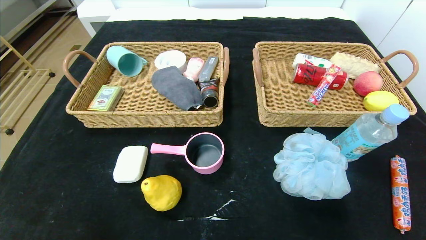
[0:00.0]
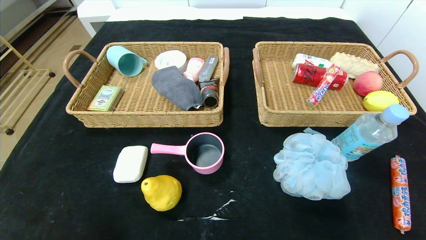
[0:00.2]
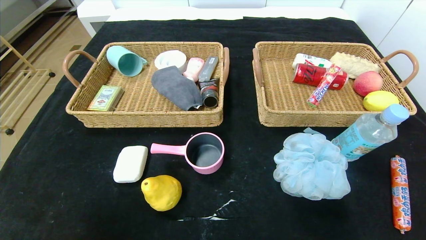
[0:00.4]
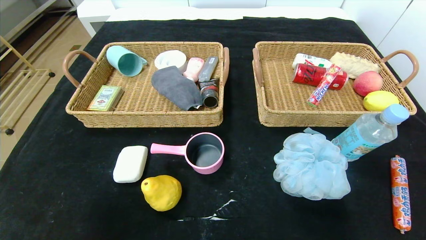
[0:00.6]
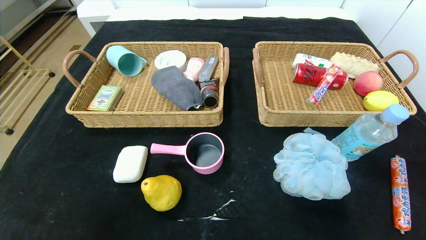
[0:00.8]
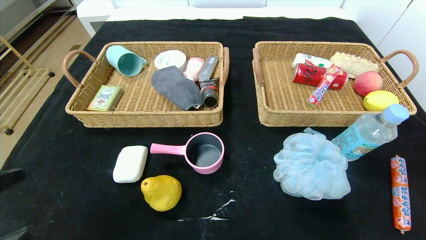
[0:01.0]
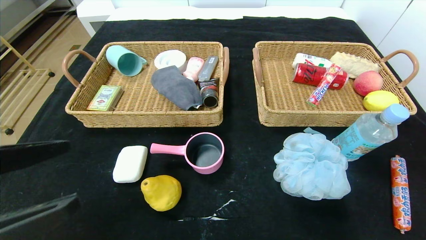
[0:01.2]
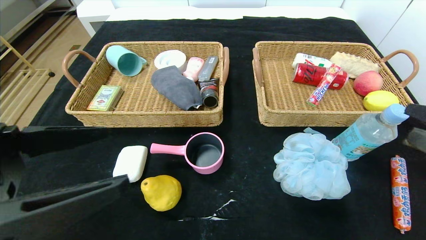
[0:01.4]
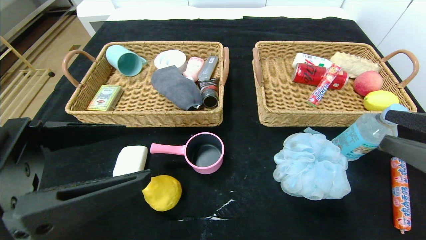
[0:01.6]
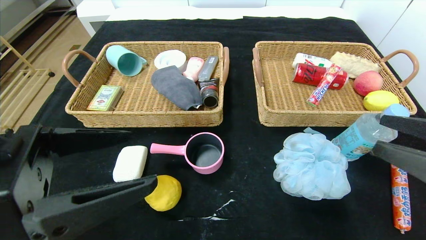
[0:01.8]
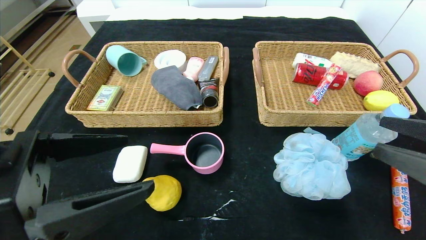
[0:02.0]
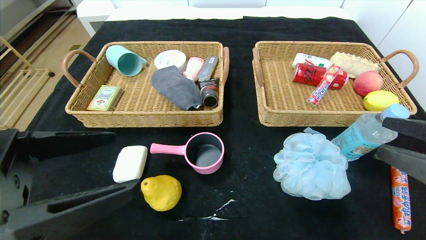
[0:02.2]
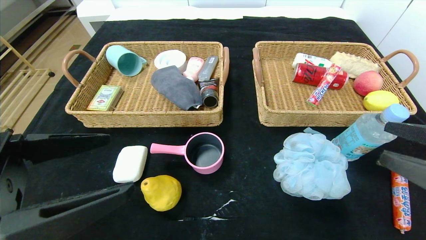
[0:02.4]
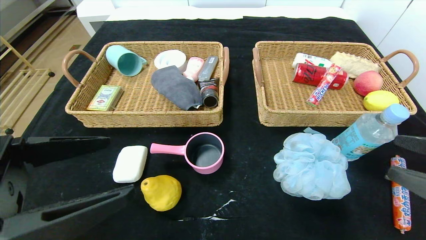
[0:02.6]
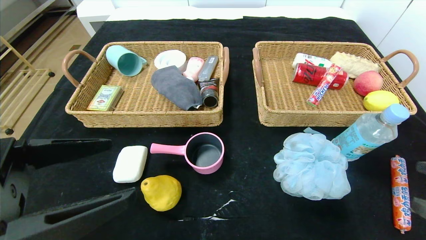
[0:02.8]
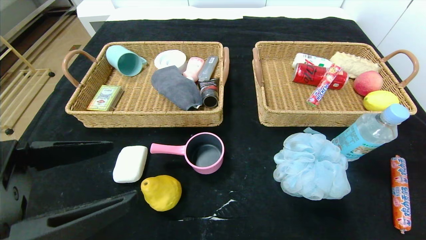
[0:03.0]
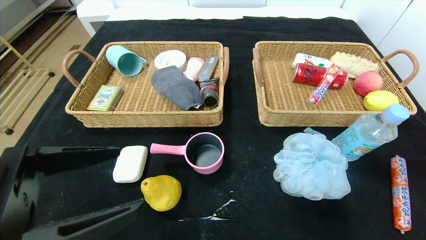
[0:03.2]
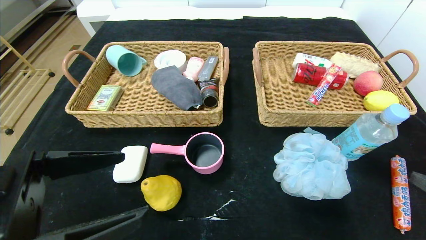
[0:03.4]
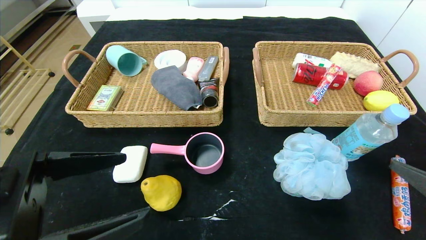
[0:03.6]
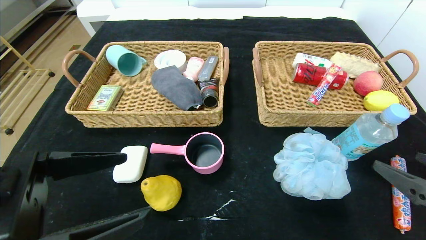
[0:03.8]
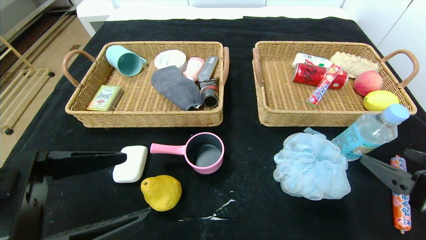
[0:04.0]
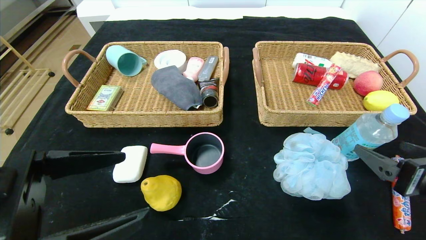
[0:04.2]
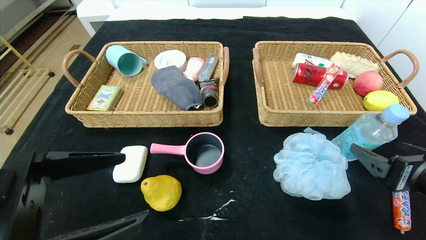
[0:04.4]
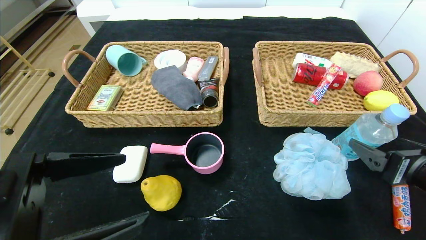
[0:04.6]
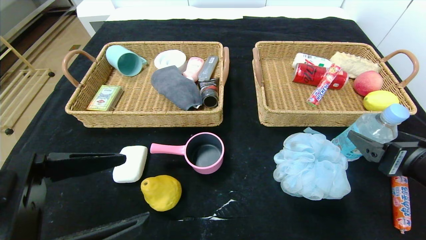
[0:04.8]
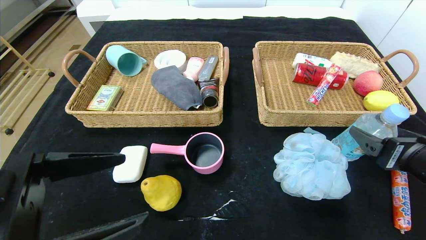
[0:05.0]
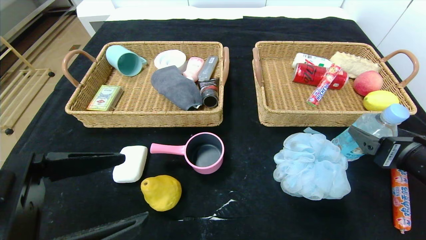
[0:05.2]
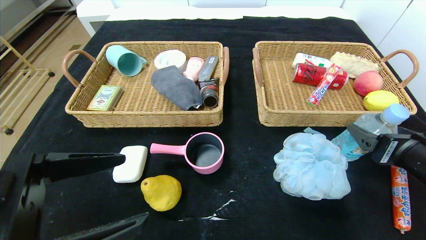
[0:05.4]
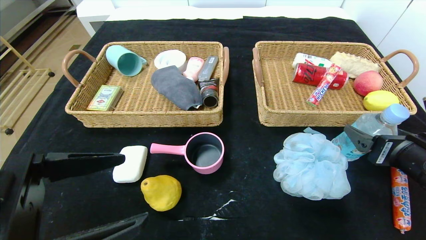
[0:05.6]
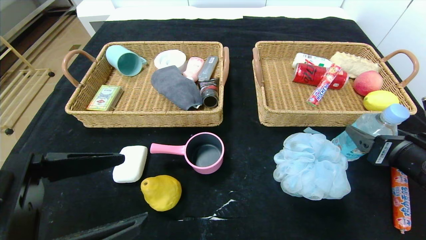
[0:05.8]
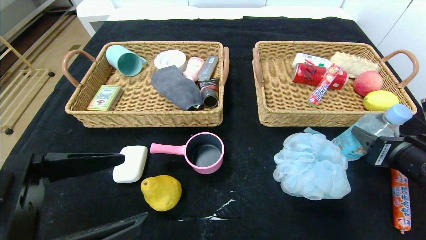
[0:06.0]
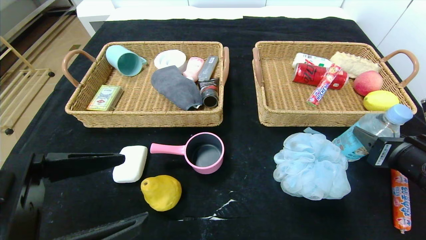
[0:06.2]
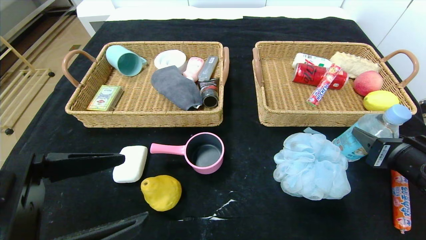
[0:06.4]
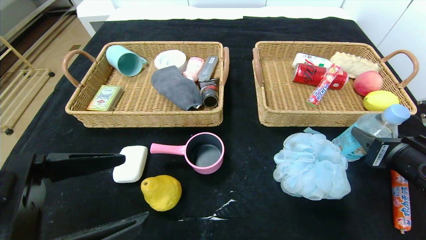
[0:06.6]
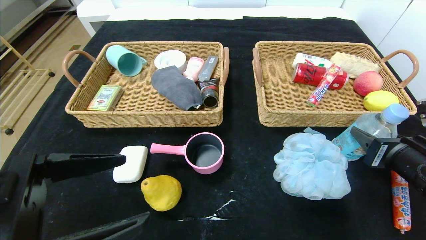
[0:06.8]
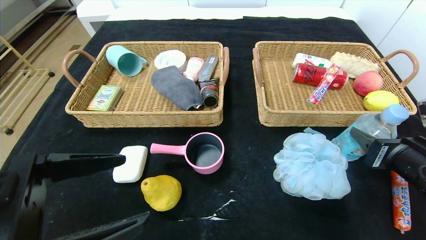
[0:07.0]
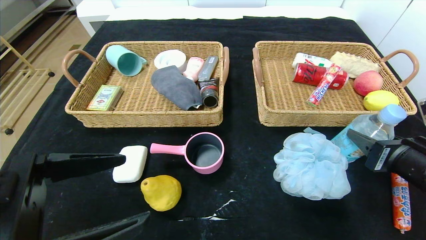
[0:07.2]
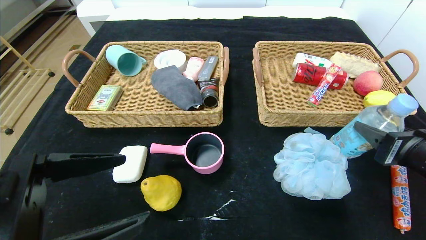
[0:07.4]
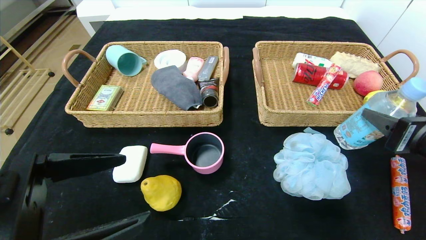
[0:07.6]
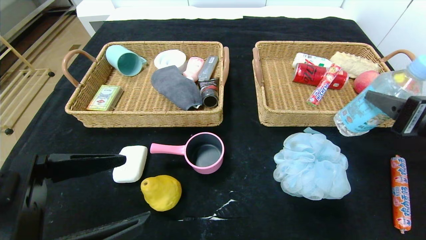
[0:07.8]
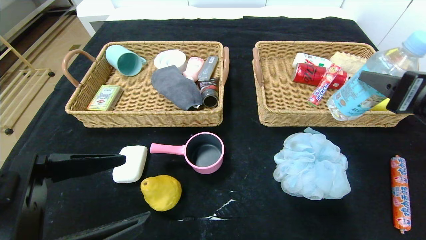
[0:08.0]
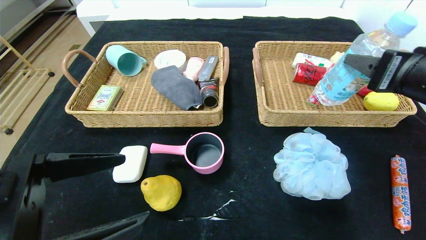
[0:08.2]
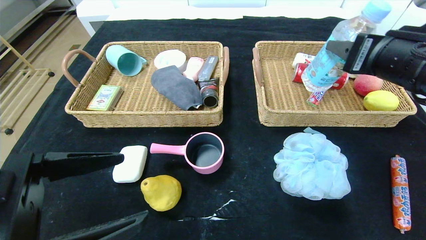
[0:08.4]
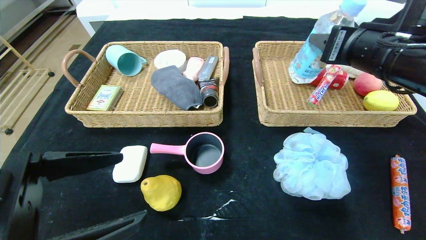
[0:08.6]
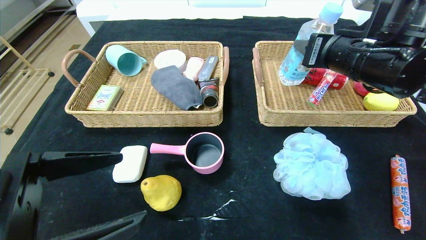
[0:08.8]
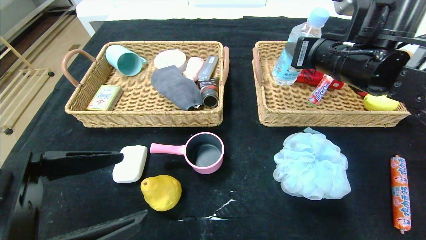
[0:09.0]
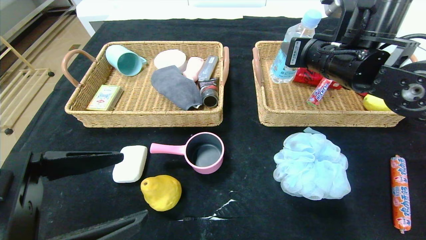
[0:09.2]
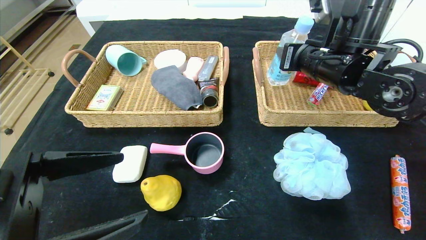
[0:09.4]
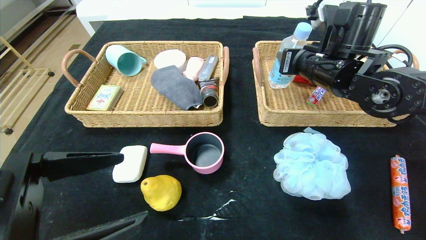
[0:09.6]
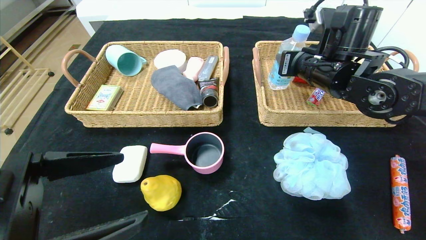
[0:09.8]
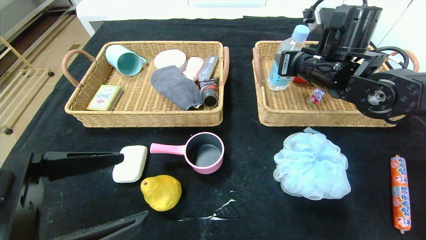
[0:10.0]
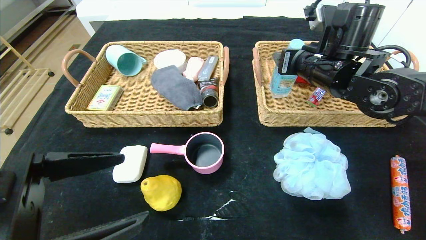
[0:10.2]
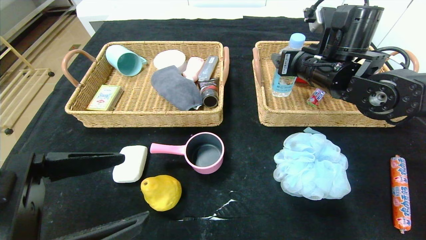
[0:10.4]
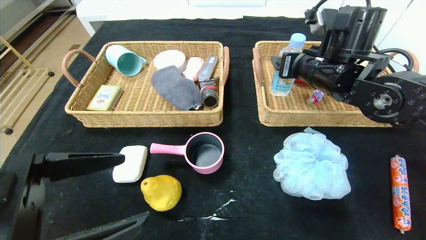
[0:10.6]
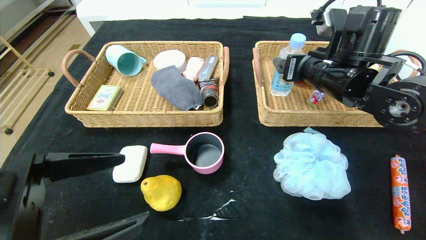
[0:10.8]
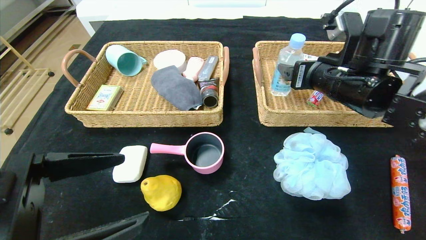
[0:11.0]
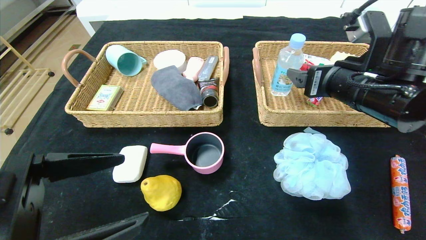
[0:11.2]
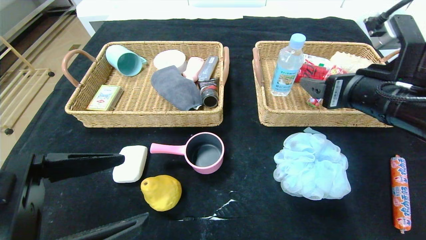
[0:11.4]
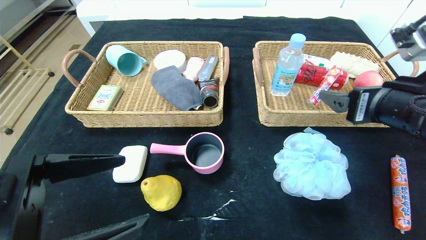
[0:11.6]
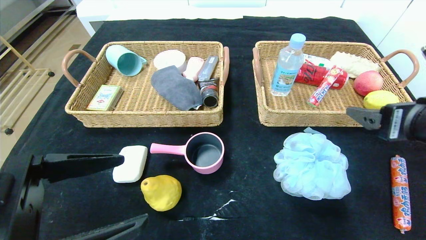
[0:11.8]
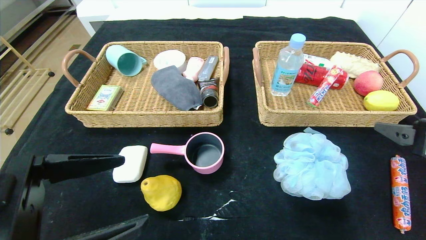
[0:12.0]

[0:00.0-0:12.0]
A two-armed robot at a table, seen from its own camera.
Step, 0:00.0 to 0:10.4: Grasp the soda water and put it in the right basket.
0:00.0 to 0:01.6: Both grippers travel together upward and forward, some 25 cm.
0:01.6 to 0:03.0: The right gripper moves backward and to the right, about 10 cm.
0:03.0 to 0:04.4: The right gripper is displaced forward and downward by roughly 10 cm.
0:04.4 to 0:06.0: The right gripper closes.
0:06.0 to 0:07.6: The right gripper shifts by some 5 cm.
0:07.6 to 0:09.0: The right gripper heads forward, to the left and upward, covering about 20 cm.
0:09.0 to 0:10.4: The right gripper moves about 5 cm, and opens.
0:10.4 to 0:12.0: The right gripper shifts some 25 cm backward and to the right.

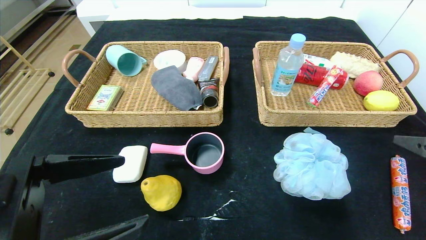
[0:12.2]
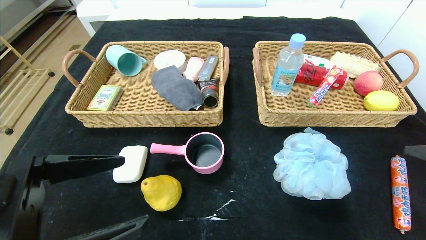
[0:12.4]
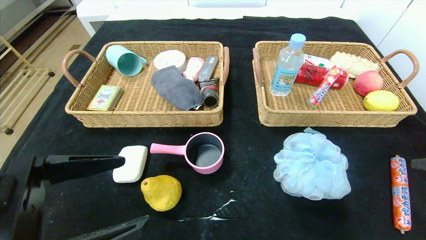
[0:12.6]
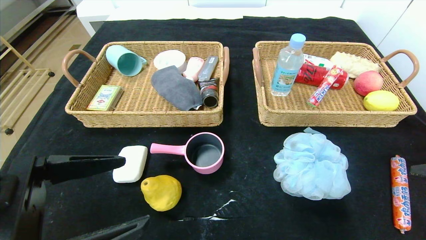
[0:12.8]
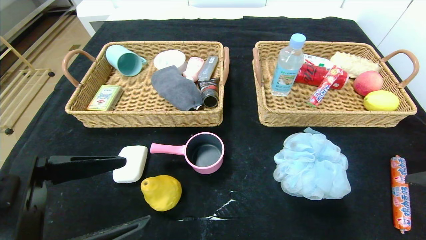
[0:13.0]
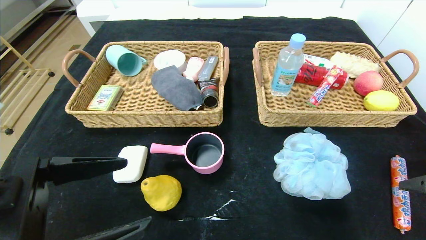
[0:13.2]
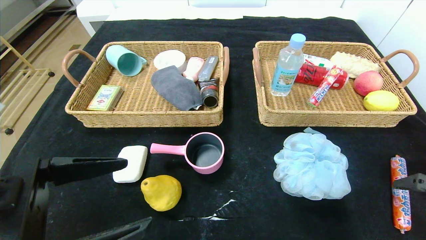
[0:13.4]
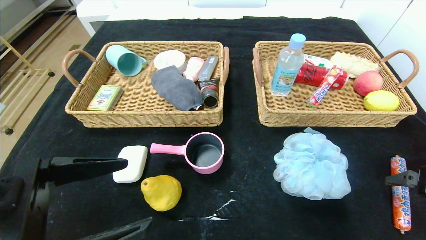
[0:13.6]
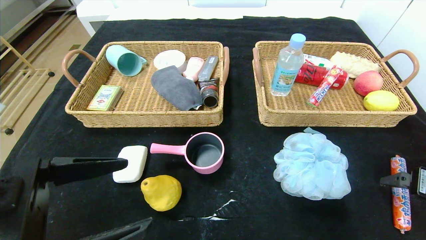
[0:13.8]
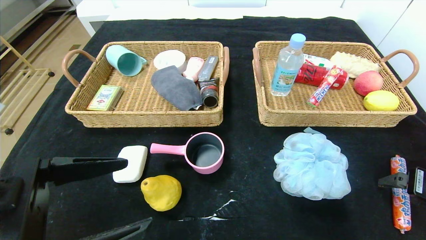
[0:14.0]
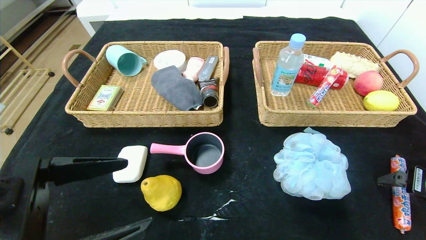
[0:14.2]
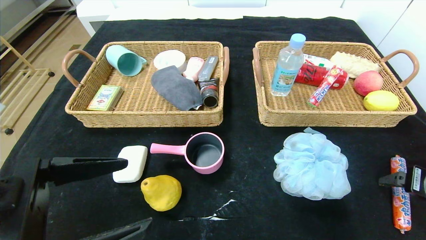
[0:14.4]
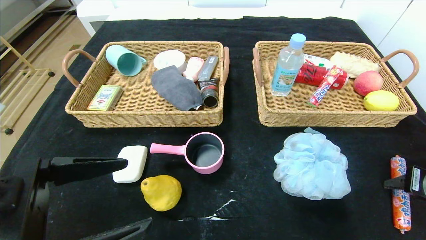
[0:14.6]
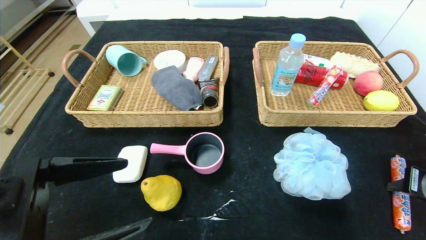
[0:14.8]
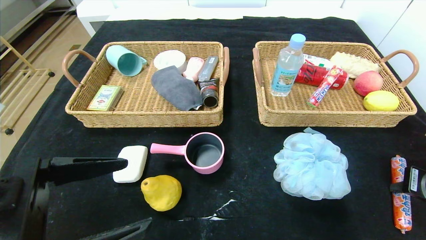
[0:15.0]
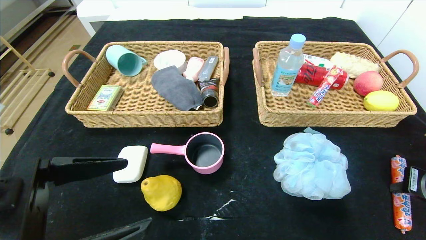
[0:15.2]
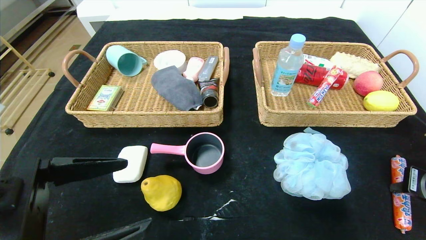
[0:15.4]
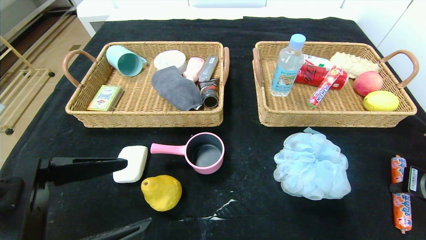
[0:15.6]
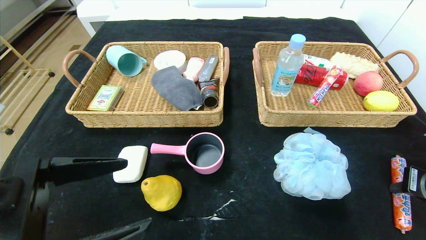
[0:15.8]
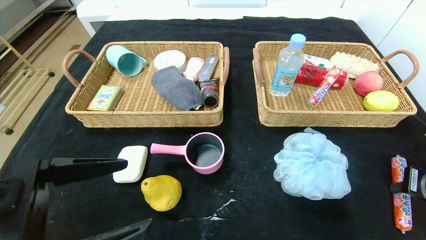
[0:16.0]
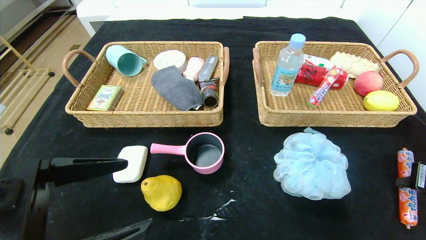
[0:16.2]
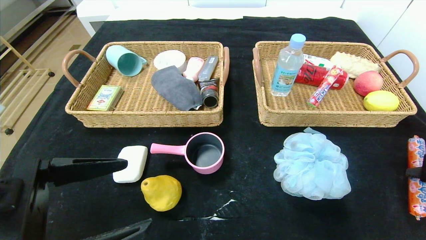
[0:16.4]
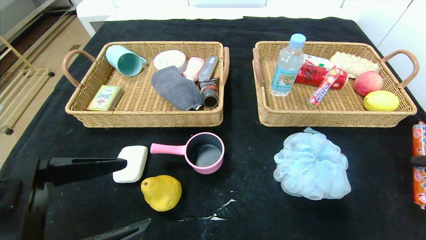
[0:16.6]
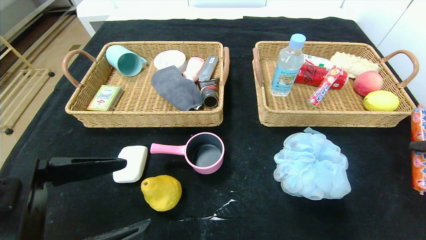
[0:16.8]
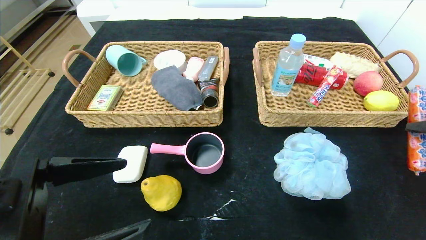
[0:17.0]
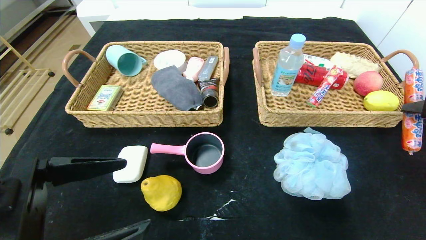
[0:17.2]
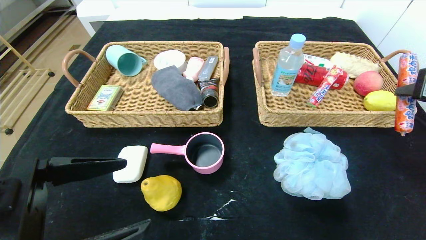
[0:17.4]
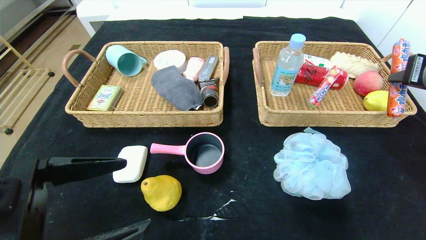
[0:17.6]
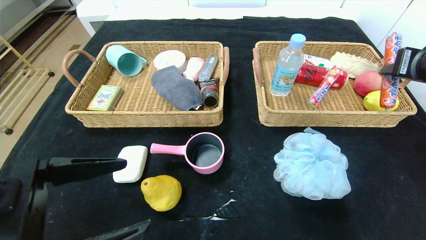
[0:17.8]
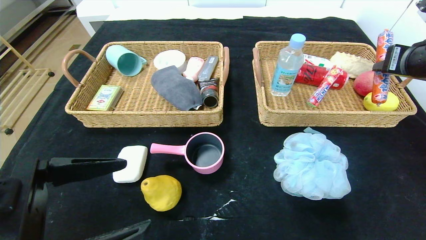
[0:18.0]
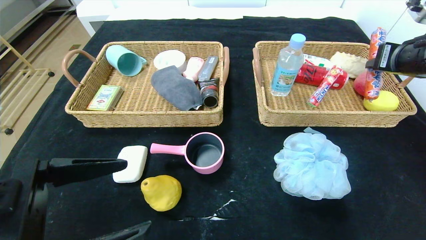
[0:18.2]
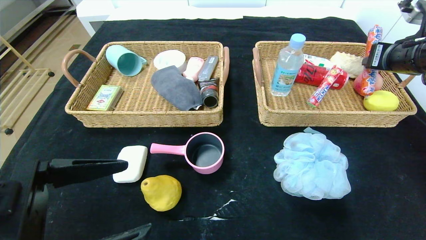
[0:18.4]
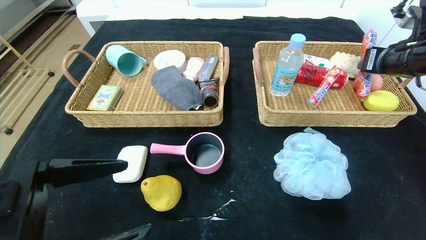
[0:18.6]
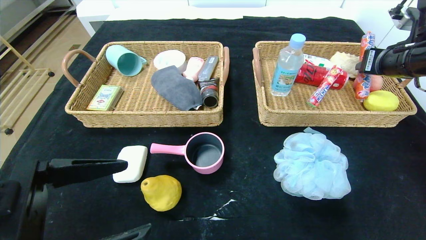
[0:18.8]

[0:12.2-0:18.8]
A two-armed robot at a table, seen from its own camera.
0:12.2 to 0:13.8: The right gripper travels downward by about 10 cm.
0:13.8 to 0:15.4: The right gripper closes up.
0:15.4 to 0:17.2: The right gripper shifts some 10 cm upward.
0:17.2 to 0:18.8: The right gripper shifts approximately 15 cm forward.
